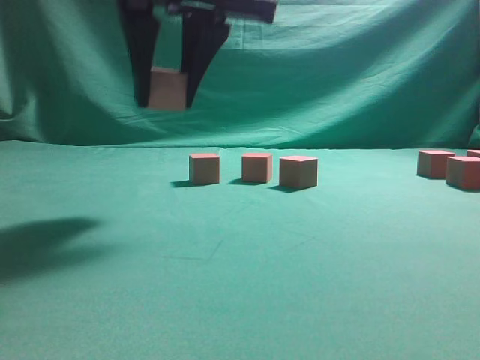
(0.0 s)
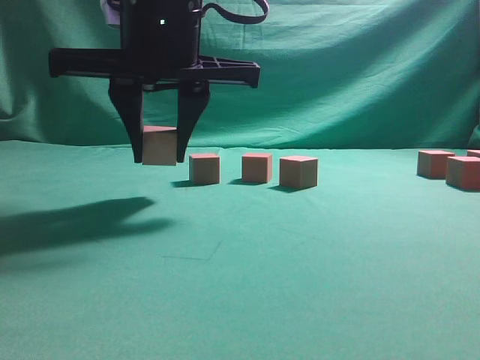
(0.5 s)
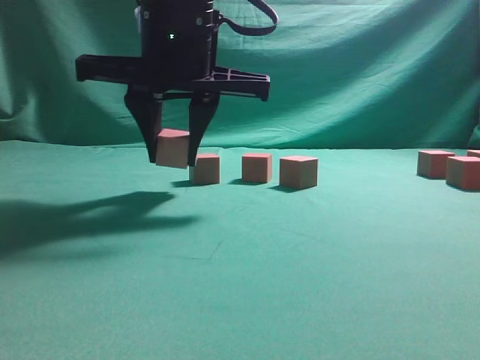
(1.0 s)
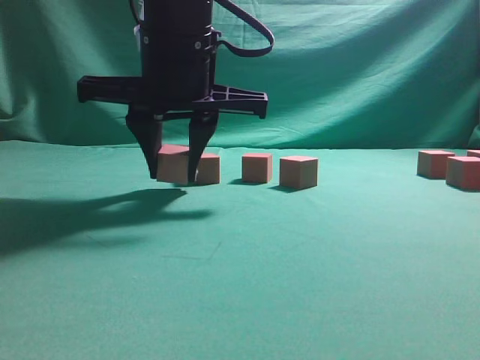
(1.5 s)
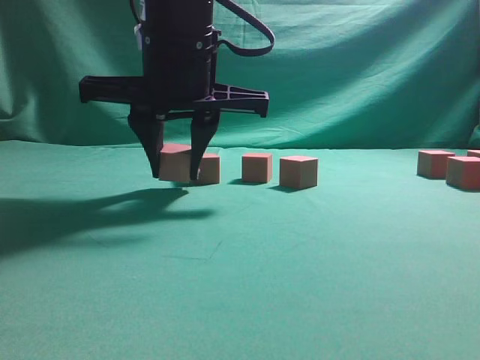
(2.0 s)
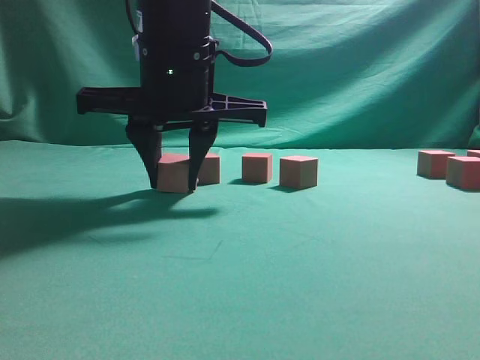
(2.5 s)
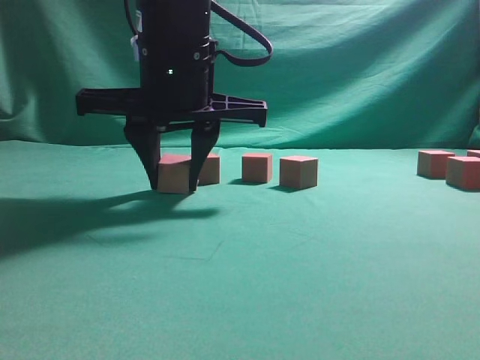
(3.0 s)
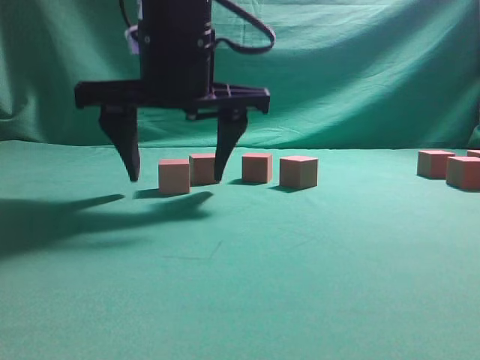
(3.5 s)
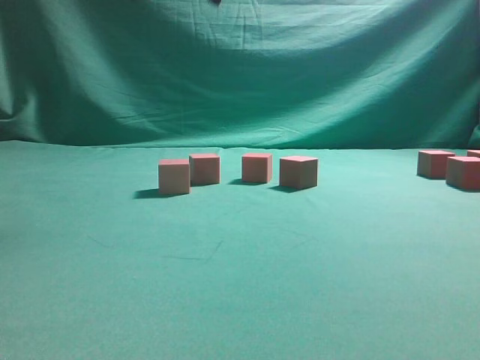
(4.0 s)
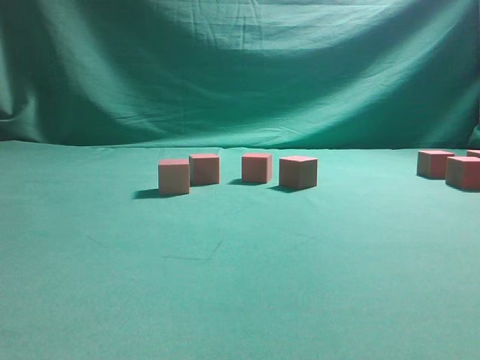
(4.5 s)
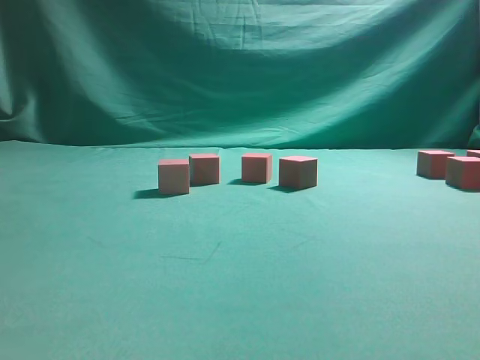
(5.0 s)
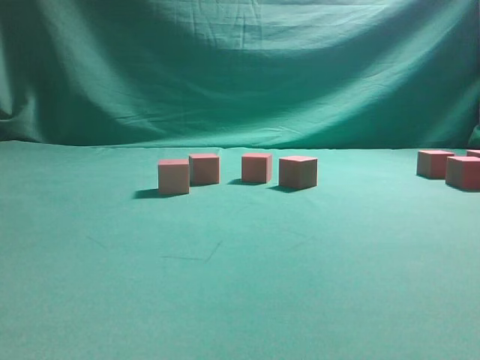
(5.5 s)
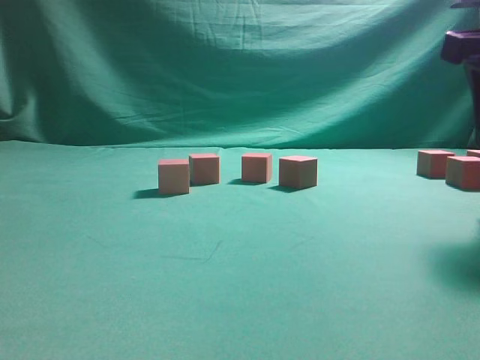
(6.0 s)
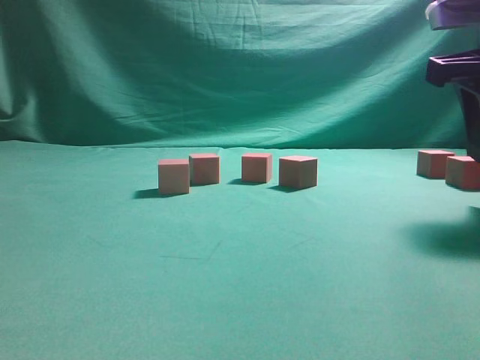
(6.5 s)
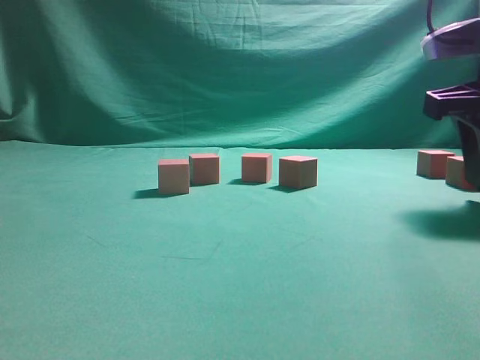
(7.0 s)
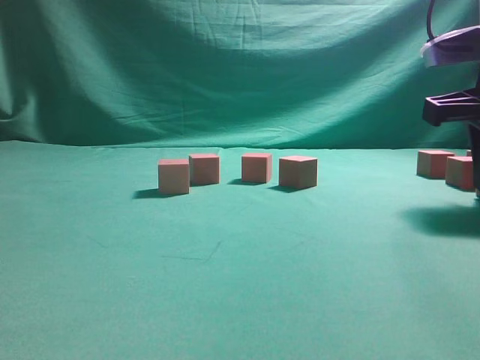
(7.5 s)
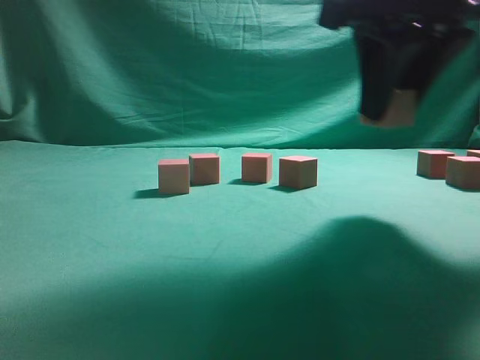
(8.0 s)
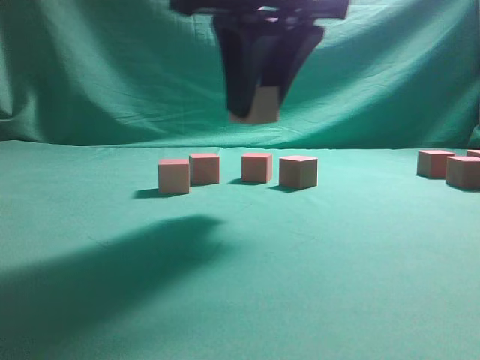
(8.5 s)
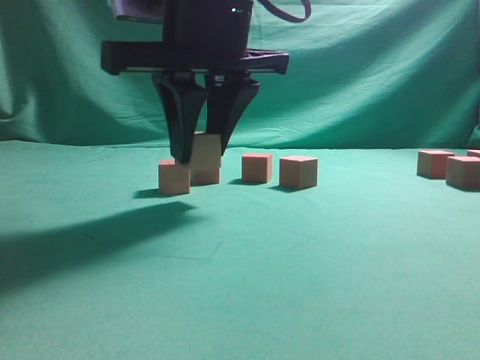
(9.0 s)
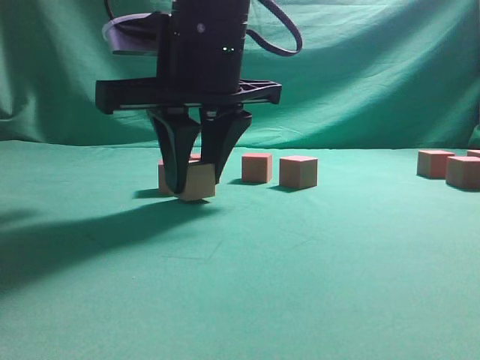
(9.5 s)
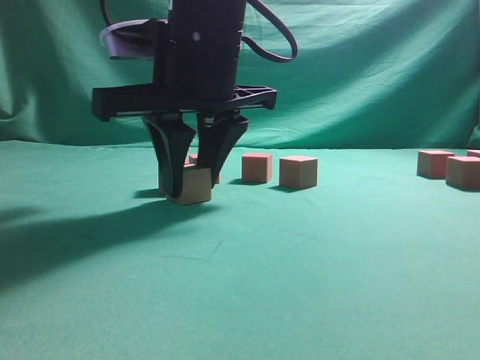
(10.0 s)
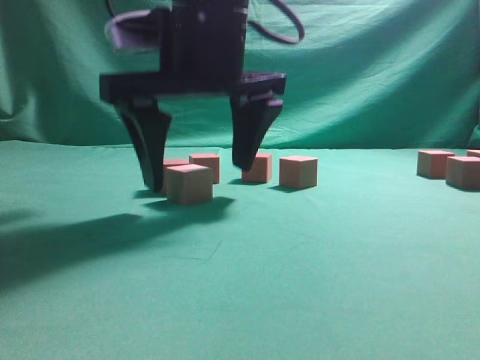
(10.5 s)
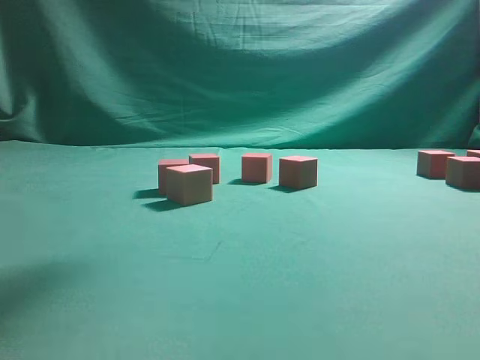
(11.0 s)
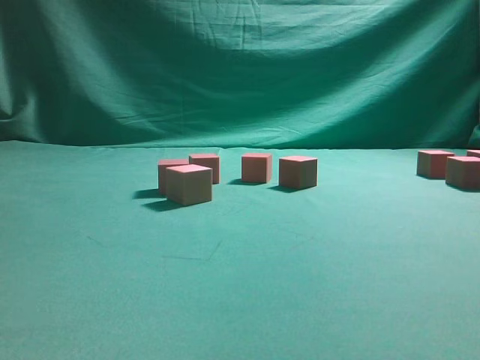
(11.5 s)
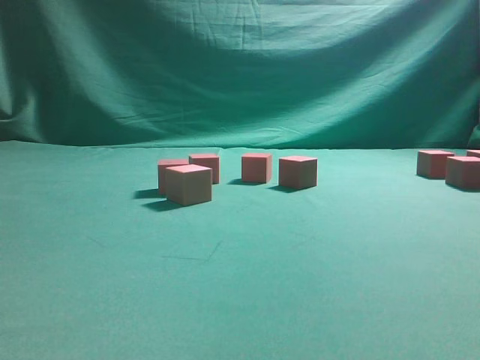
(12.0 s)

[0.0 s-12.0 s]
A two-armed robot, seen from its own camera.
Task of the whole recording: pick up the multiple cubes in two columns one by one and place them in another position on the table.
Step, 0.0 to 3.5 s: Place the block at the correct position to assemble the letter S.
Step, 4.0 to 7.5 s: Pick up the block on the table.
Step, 8.0 to 10.5 s: Place the block at the correct position to assemble the letter S.
0.0 to 2.0 s: The right gripper shifts some 5 cm downward.
2.0 to 4.0 s: The right gripper travels upward by some 15 cm, and opens its fingers.
4.0 to 6.0 s: The right gripper is displaced to the right and downward by about 30 cm.
6.0 to 8.0 s: The right gripper moves to the left, some 10 cm, and closes.
8.0 to 10.0 s: The right gripper is displaced to the left by roughly 15 cm.
10.0 to 12.0 s: The right gripper travels to the right by some 30 cm, and opens.

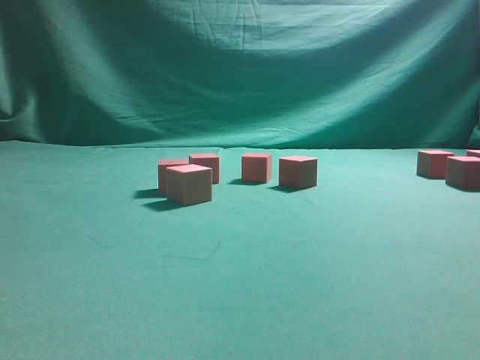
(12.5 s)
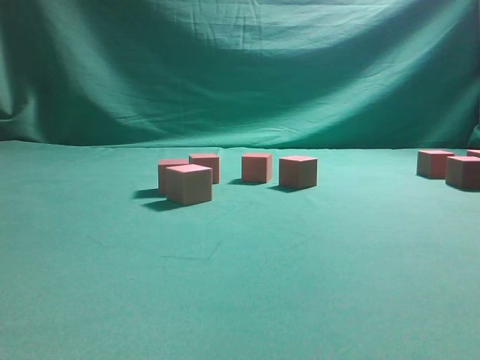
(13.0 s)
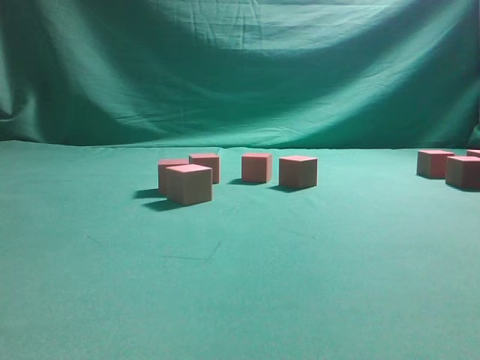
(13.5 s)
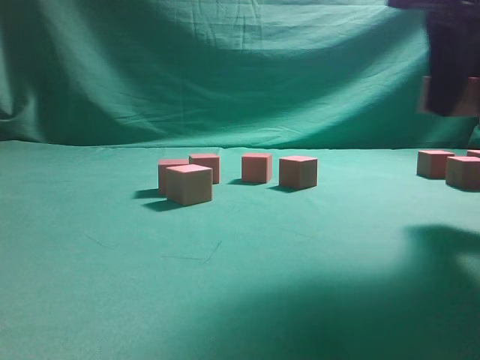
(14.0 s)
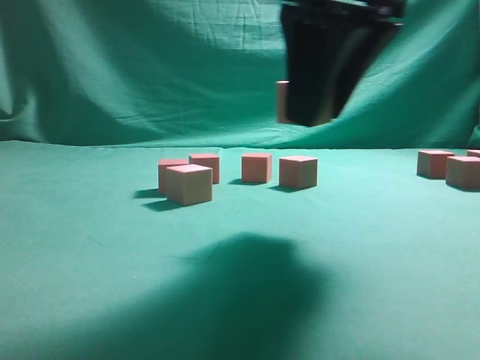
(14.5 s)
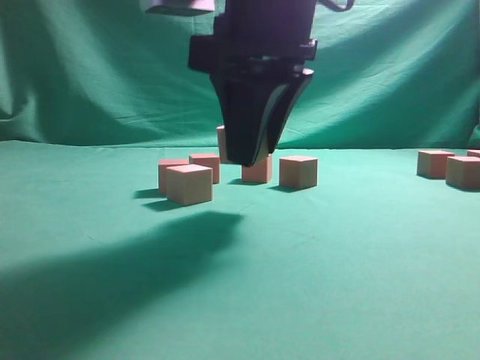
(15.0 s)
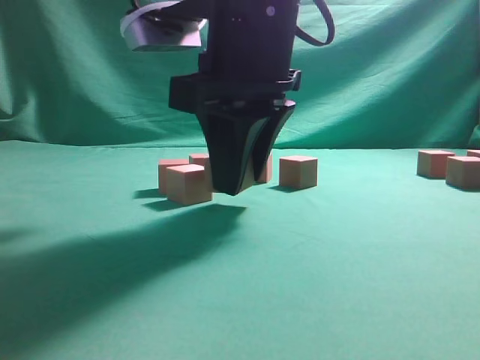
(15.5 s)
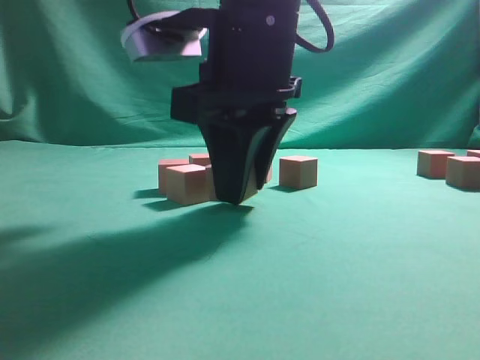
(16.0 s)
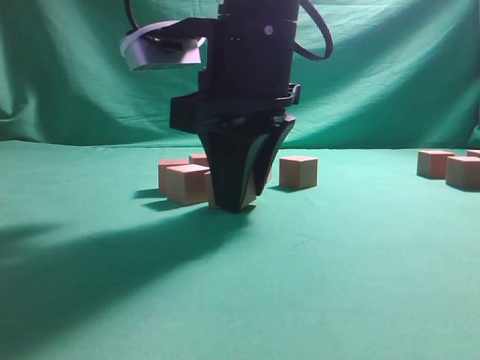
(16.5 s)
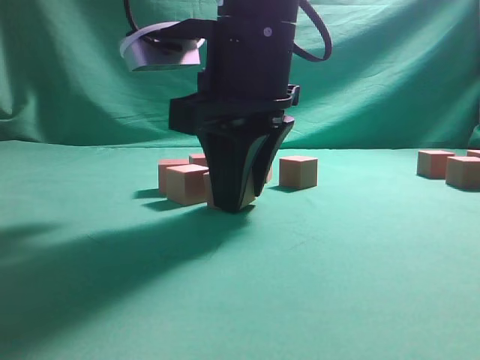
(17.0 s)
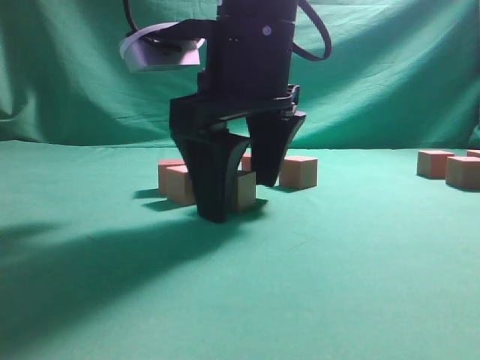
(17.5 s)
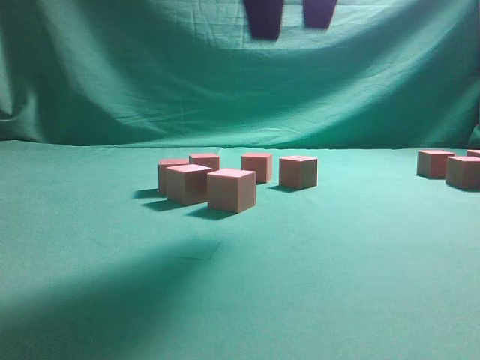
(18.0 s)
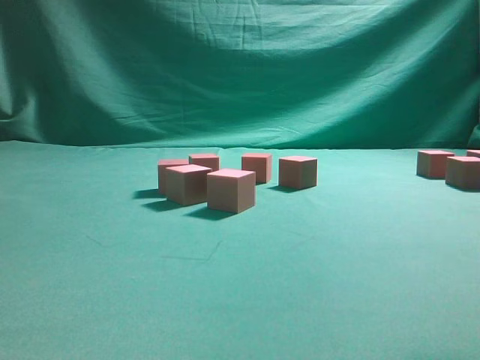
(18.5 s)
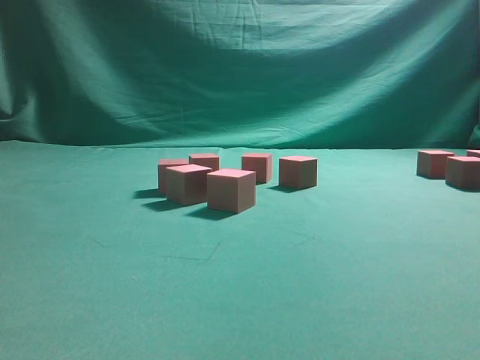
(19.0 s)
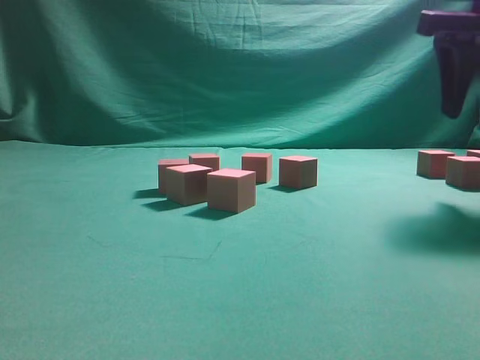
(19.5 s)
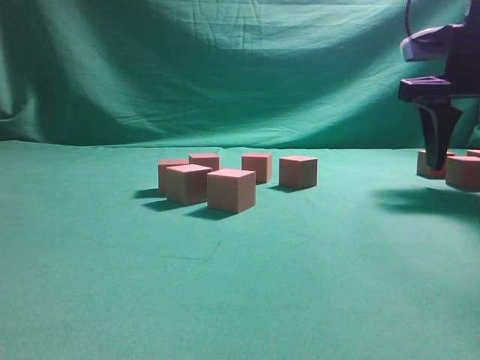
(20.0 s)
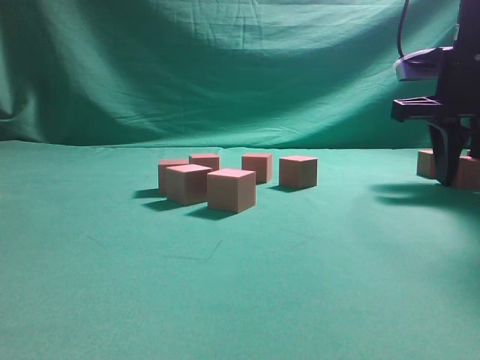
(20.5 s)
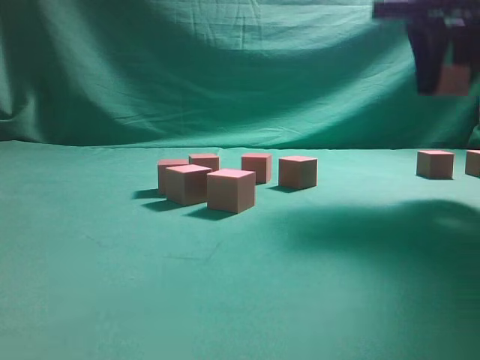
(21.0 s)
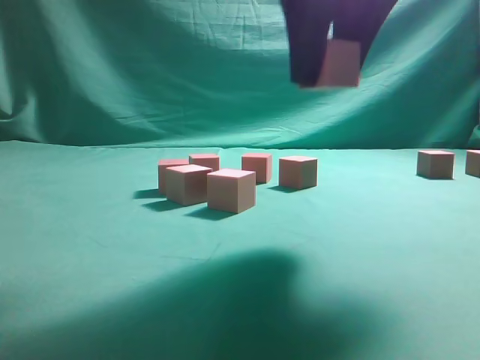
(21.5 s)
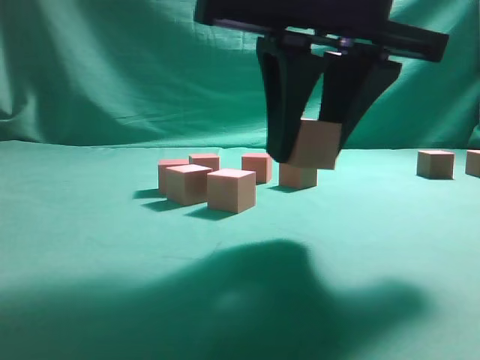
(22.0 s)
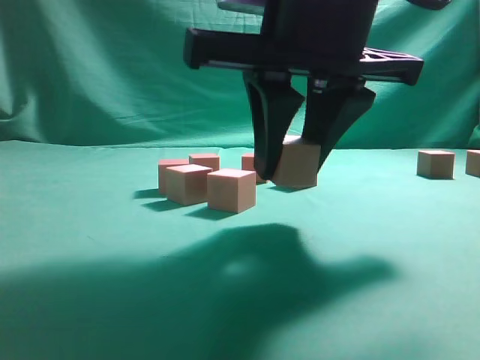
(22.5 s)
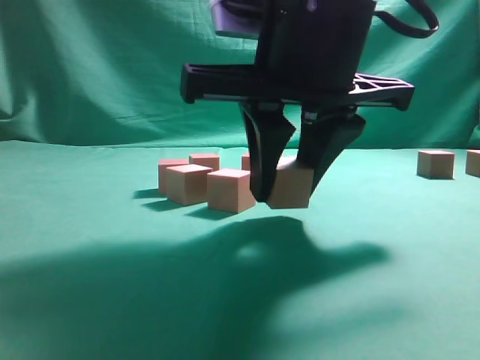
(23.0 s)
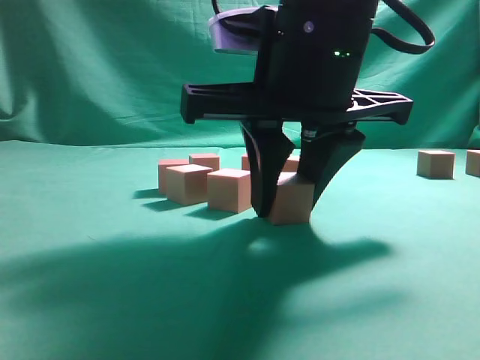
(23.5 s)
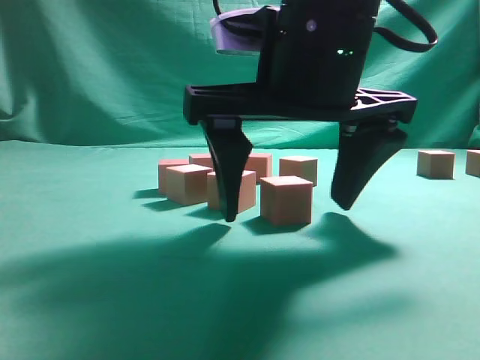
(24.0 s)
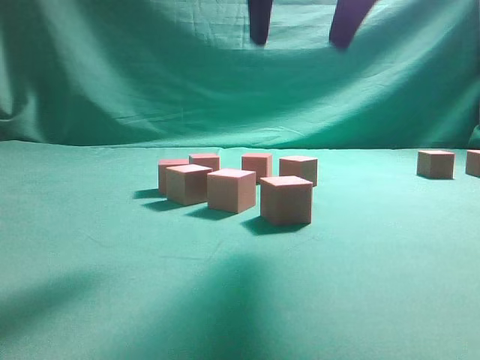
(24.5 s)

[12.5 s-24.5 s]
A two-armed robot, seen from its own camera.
Task of the whole recording: pick up the multiple cubes in two columns one by one and place them in another position on the table.
Step, 14.0 to 17.5 s: Place the block at the correct position to assemble the letter S.
Step, 18.0 to 21.0 s: Pick up the block on the table.
Step, 21.5 to 24.0 s: Place the block at the correct position to assemble the letter S.
12.5 to 14.5 s: The right gripper travels to the left by roughly 20 cm, and closes up.
14.5 to 16.5 s: The right gripper heads to the left and downward, covering some 10 cm.
16.5 to 18.5 s: The right gripper travels upward and to the right by about 25 cm, and opens.
18.5 to 20.5 s: The right gripper moves downward and forward, roughly 25 cm, and closes up.
20.5 to 22.5 s: The right gripper is displaced to the left and backward by about 25 cm.
22.5 to 24.5 s: The right gripper heads upward, covering roughly 10 cm, and opens its fingers.

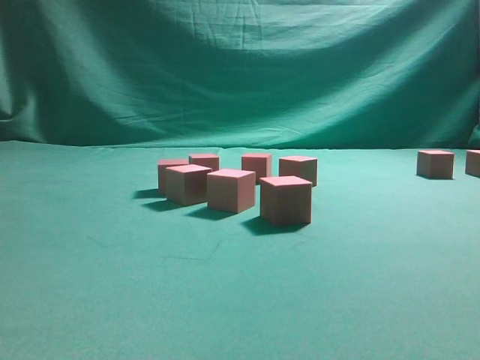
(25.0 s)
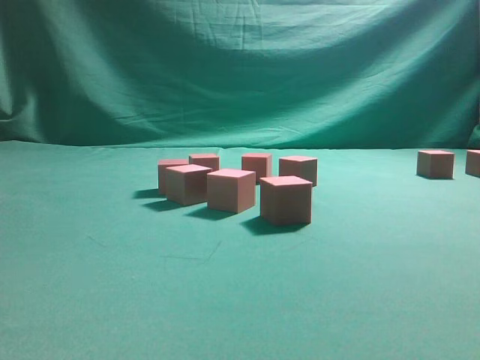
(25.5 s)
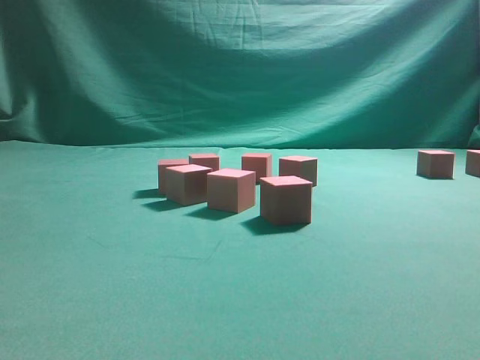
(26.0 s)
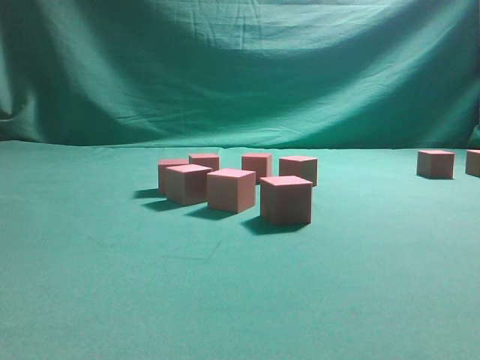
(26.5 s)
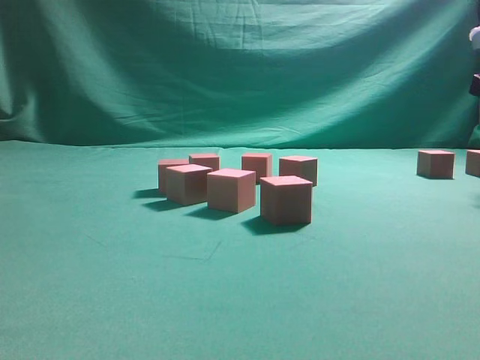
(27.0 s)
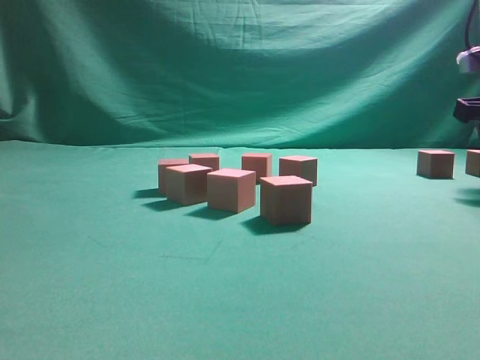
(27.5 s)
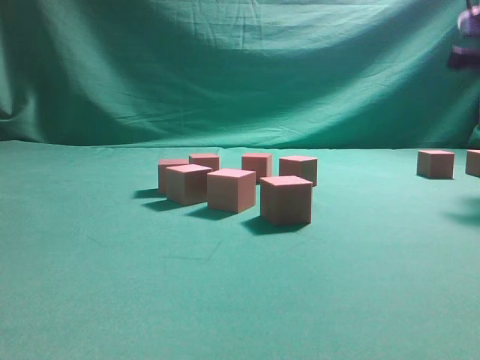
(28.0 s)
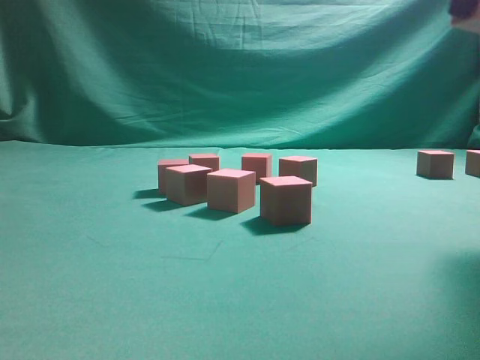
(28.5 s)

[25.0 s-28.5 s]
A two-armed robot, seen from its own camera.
Task of the whole recording: pick up the multiple cubes in two columns one by one and place them in another position on the table.
Step, 25.0 to 28.5 s: Pick up the block on the table.
27.0 to 28.5 s: The right gripper heads upward, backward and to the left, covering approximately 15 cm, and closes its fingers.
